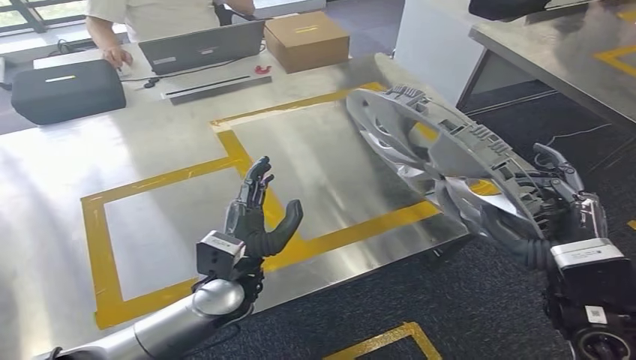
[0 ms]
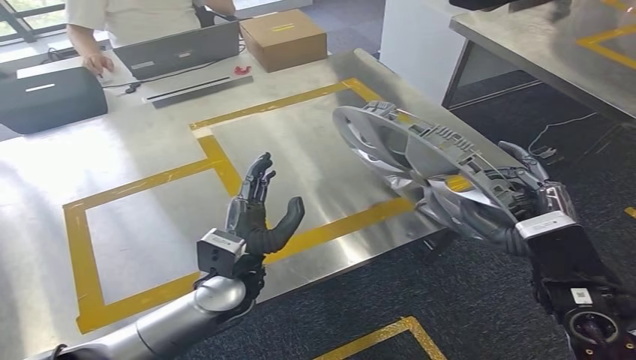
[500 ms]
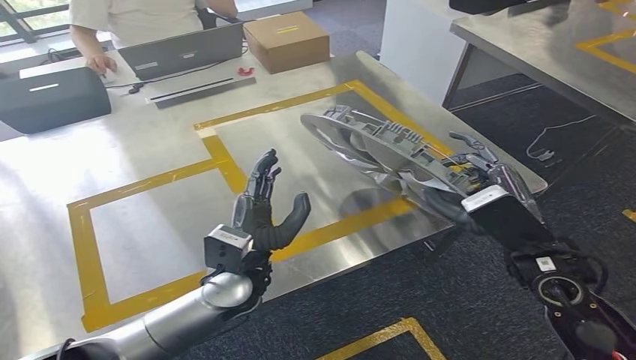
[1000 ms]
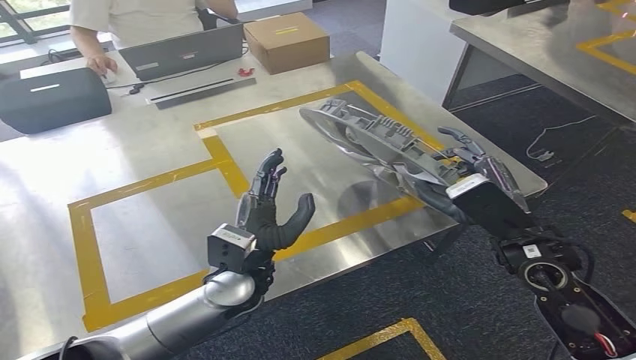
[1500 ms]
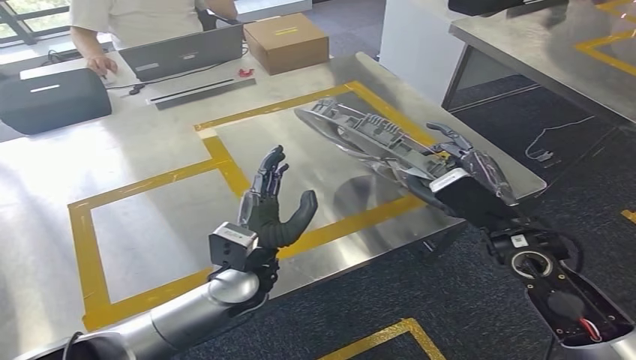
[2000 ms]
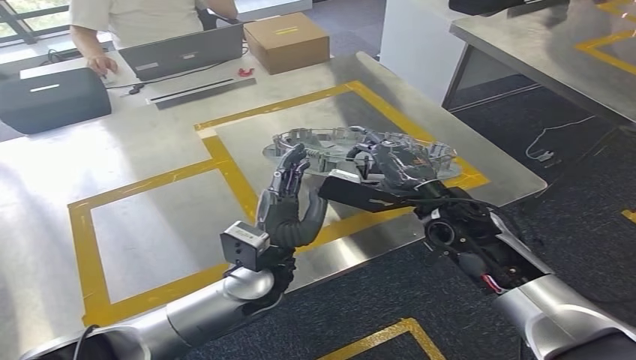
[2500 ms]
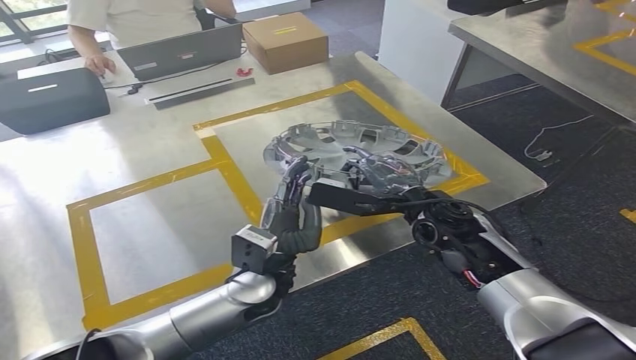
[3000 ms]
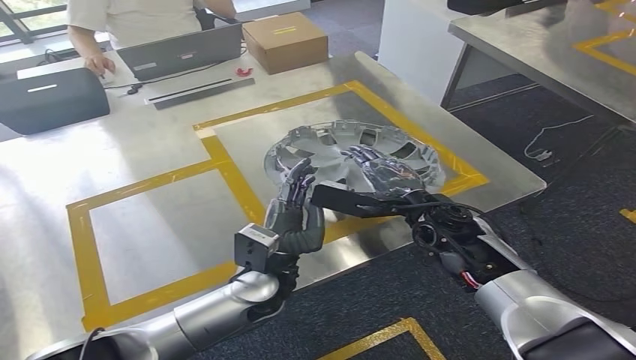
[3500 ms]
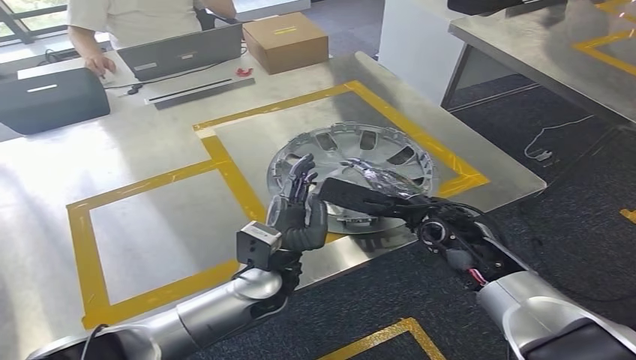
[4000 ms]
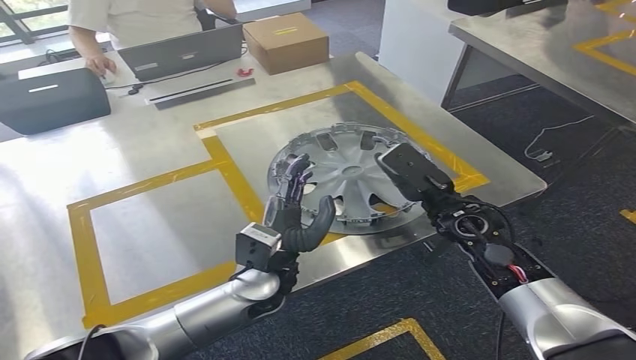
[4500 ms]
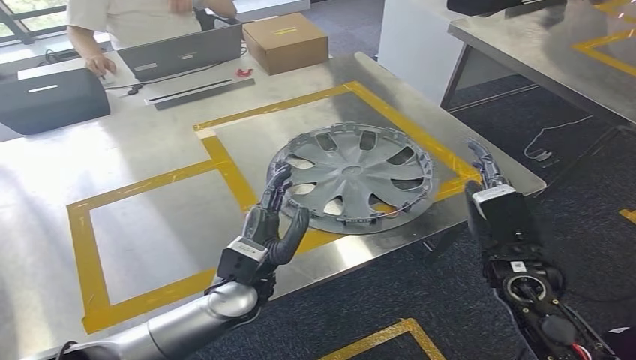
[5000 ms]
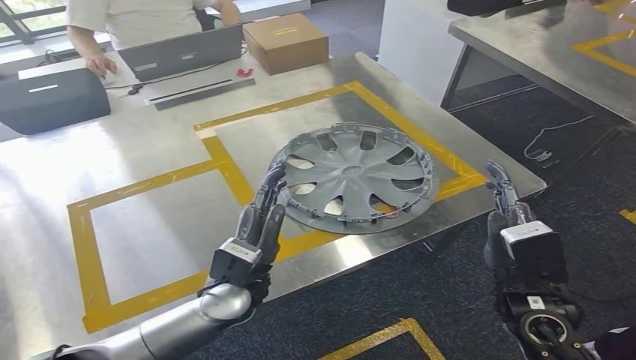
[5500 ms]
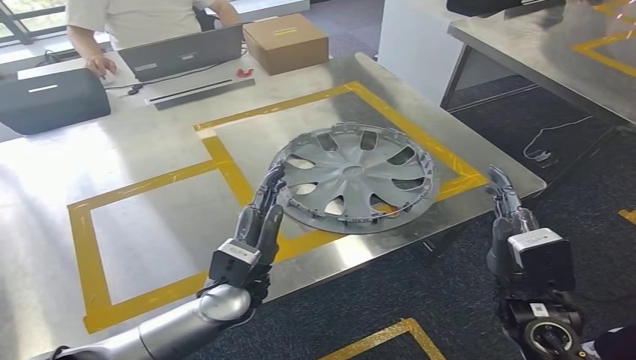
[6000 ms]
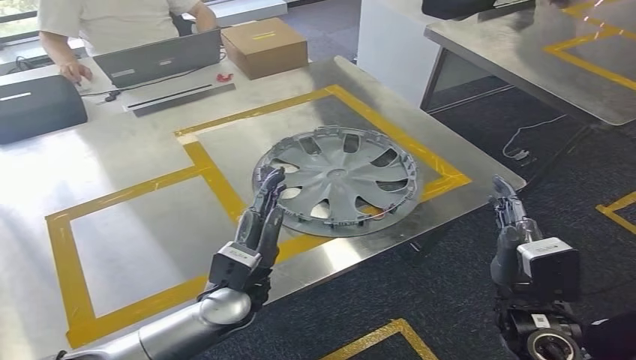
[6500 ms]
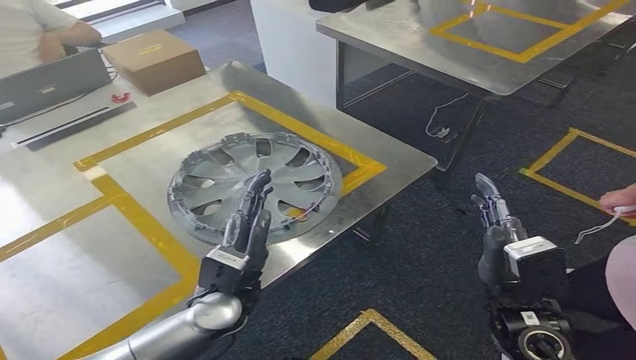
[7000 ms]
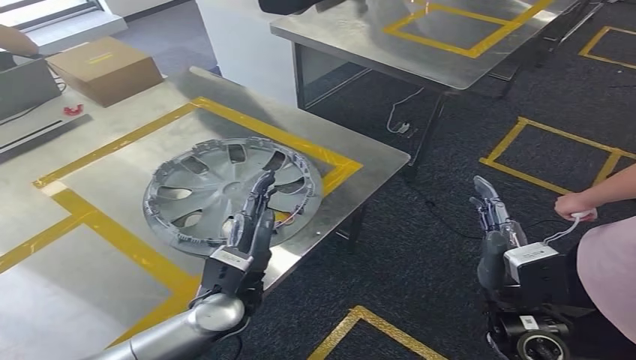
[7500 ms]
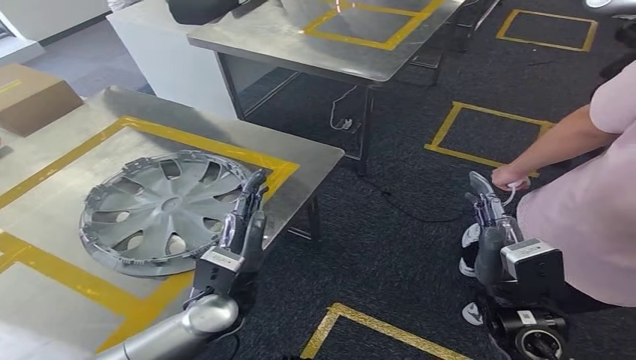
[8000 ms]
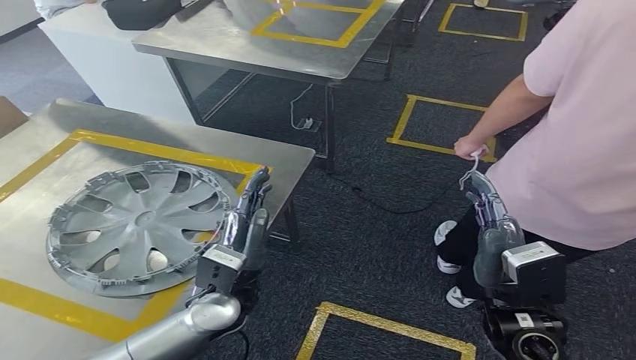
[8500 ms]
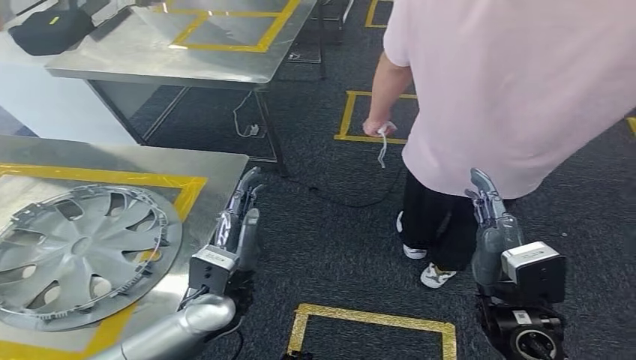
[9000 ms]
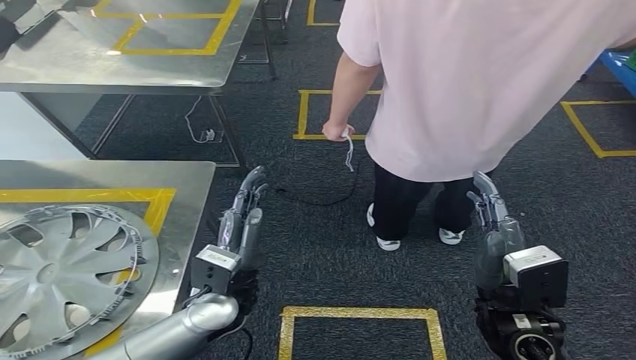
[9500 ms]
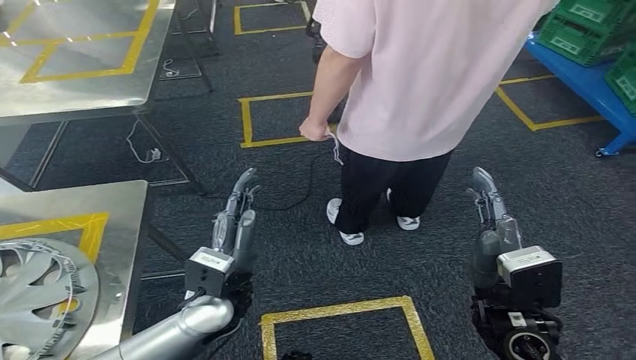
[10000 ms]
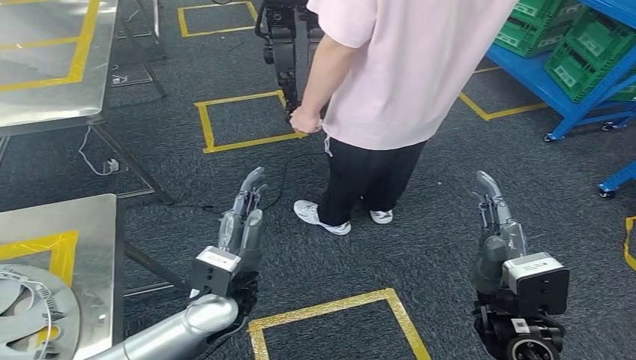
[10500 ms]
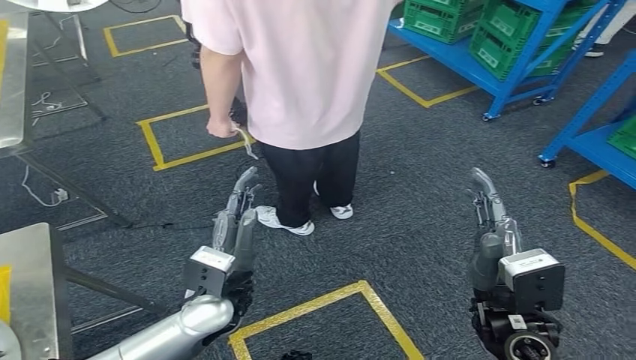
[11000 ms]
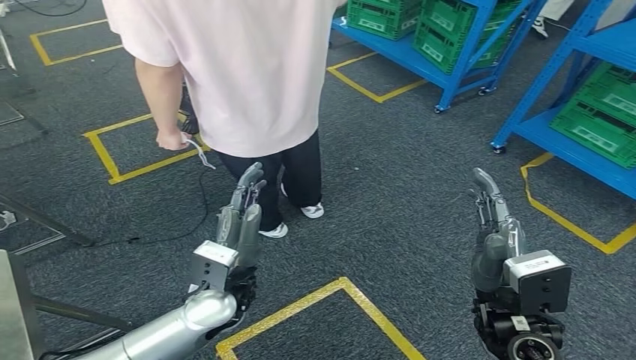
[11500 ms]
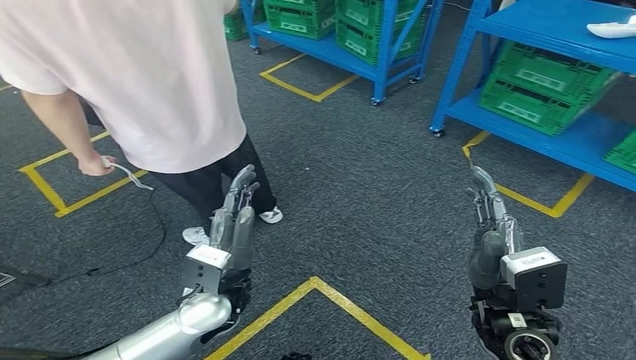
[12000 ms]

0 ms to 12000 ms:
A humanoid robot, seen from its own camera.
Step, 0 ms to 6000 ms: Insert the small parts into the corresponding slots on the workbench.
2000 ms to 4000 ms: The right hand travels to the left by about 10 cm.
4000 ms to 6000 ms: The left hand moves about 5 cm. Meanwhile the right hand goes roughly 15 cm backward and to the right.

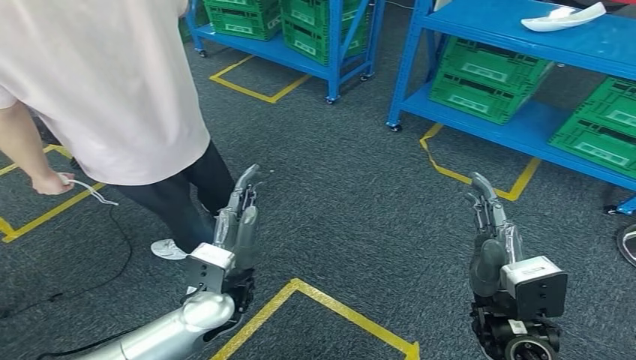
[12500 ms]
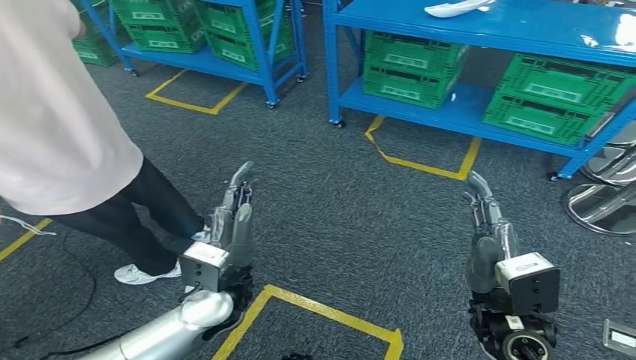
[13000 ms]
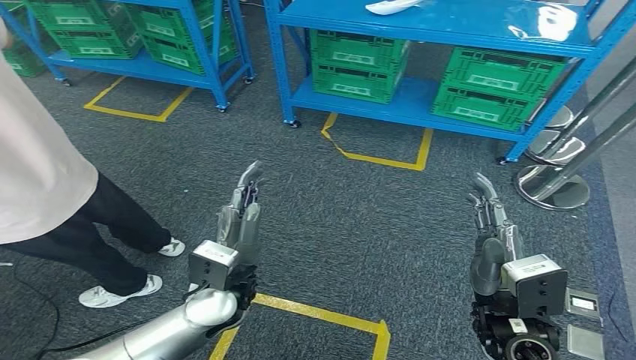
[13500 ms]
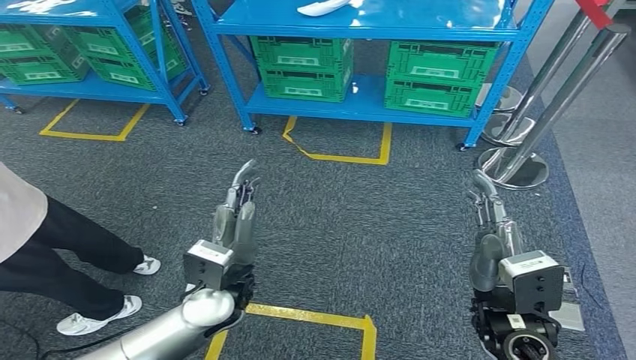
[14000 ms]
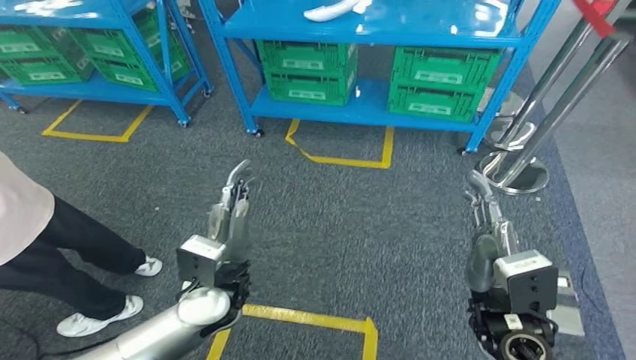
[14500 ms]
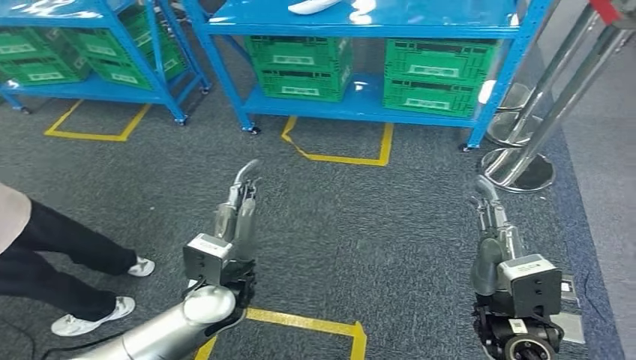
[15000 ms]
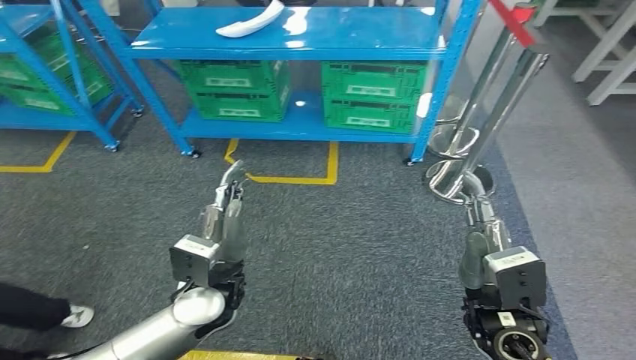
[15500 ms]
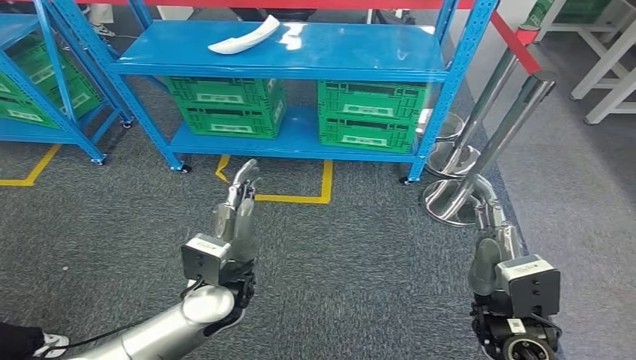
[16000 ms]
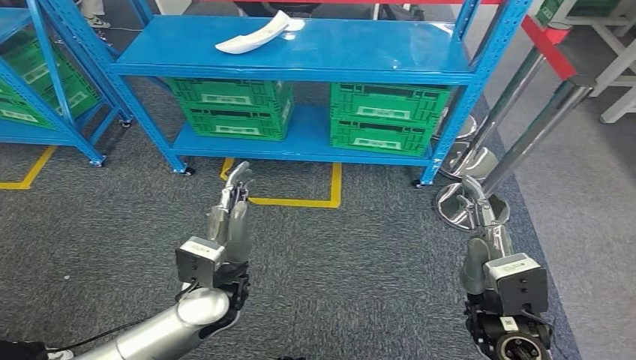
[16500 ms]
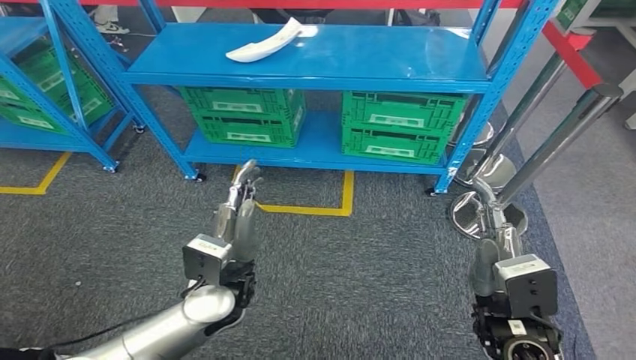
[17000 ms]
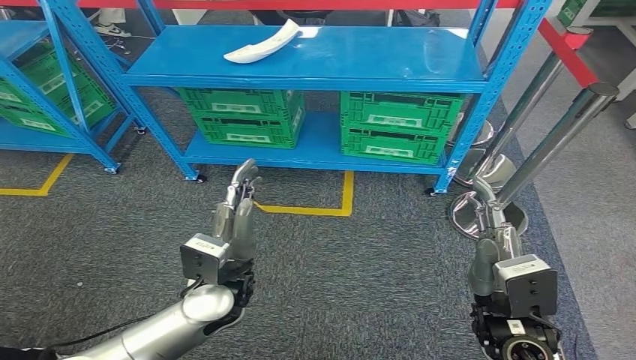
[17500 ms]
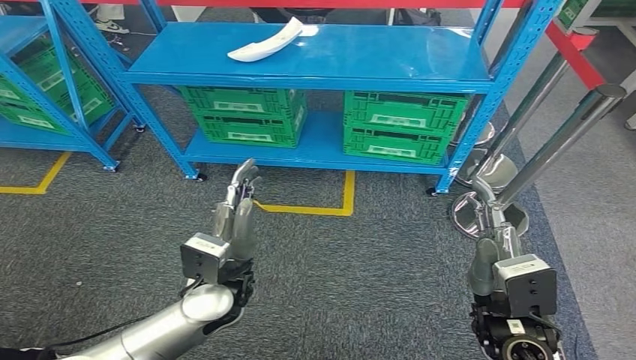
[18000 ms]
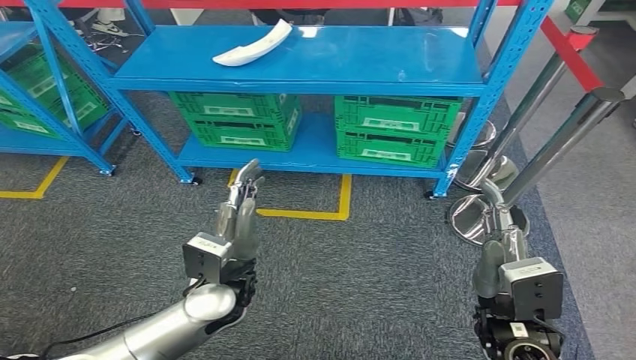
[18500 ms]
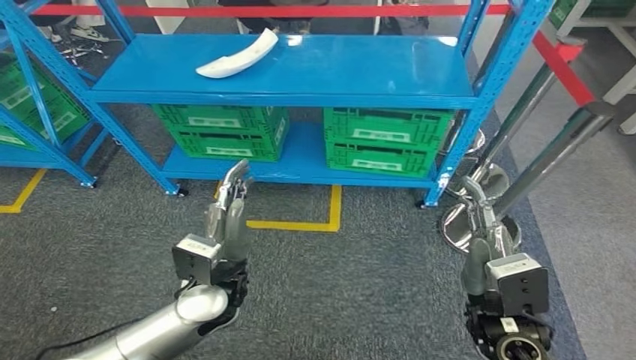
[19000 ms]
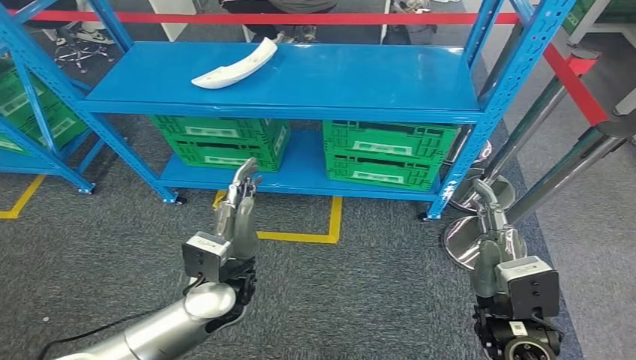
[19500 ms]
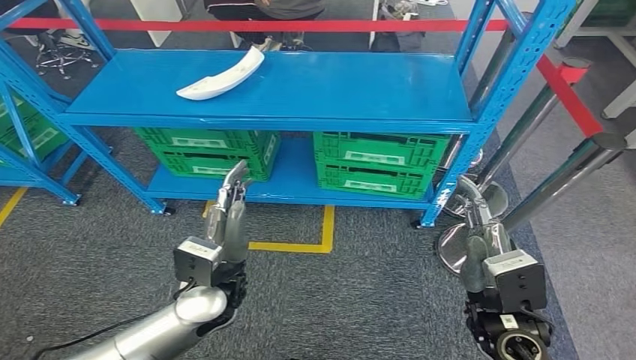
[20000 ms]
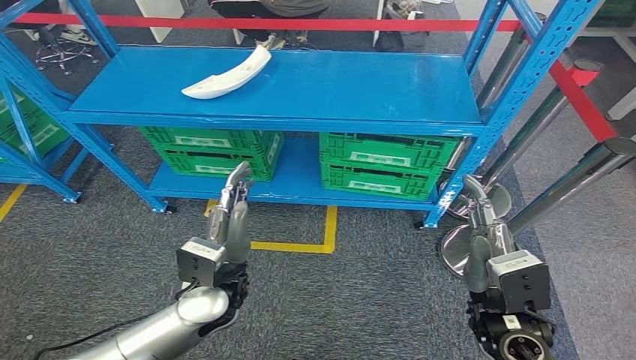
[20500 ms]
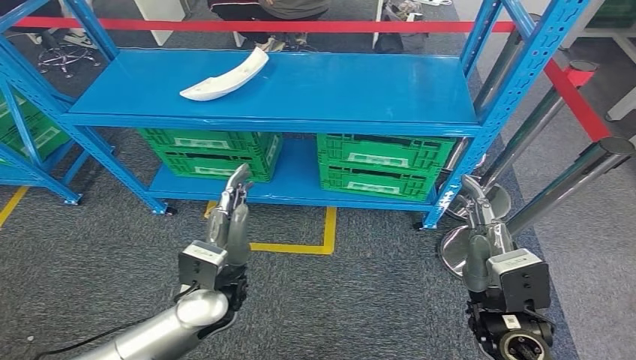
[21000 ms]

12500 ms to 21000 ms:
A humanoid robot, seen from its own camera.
Step, 12500 ms to 21000 ms: Return to the initial position at the workbench.
